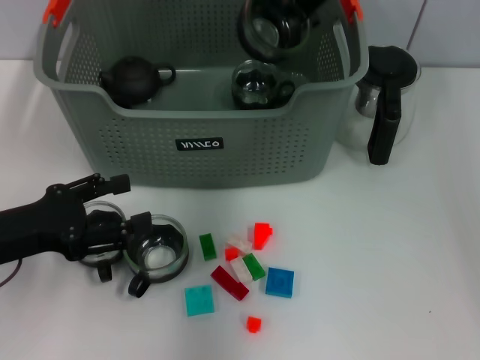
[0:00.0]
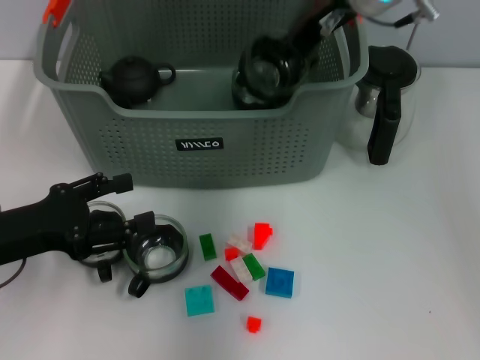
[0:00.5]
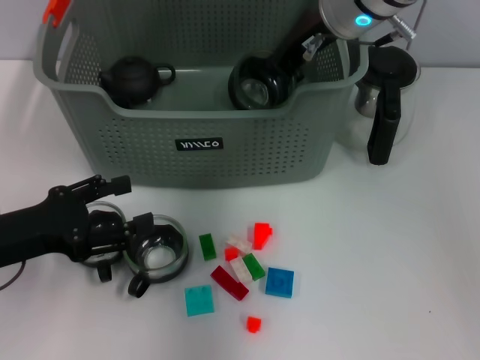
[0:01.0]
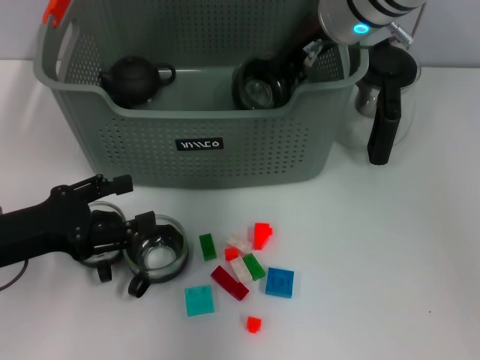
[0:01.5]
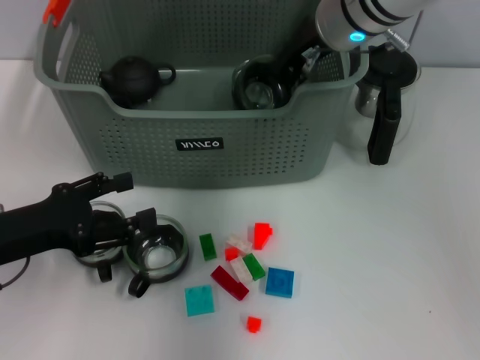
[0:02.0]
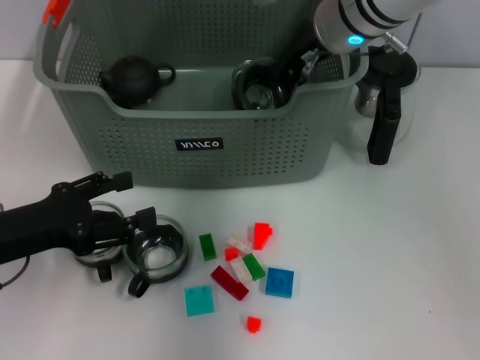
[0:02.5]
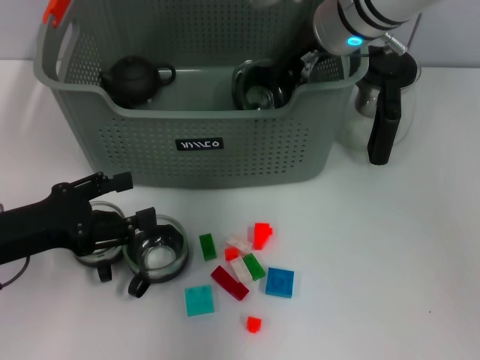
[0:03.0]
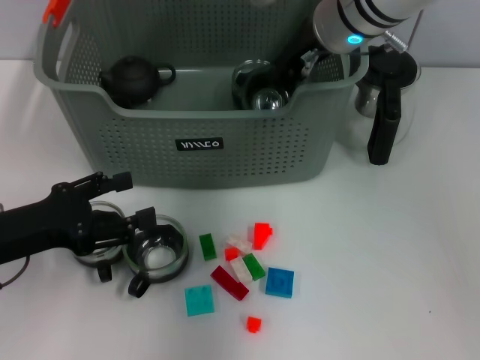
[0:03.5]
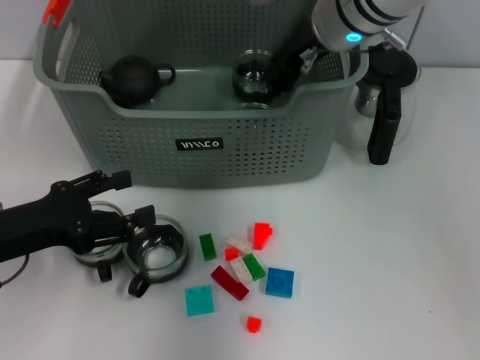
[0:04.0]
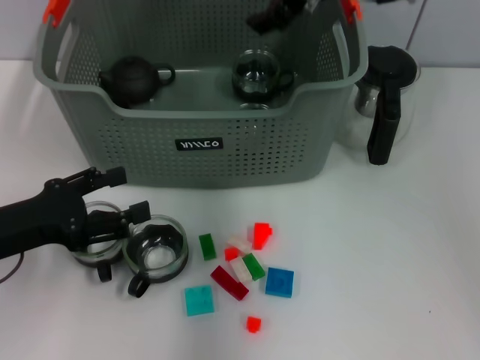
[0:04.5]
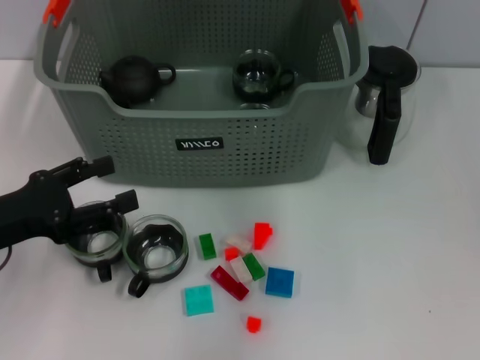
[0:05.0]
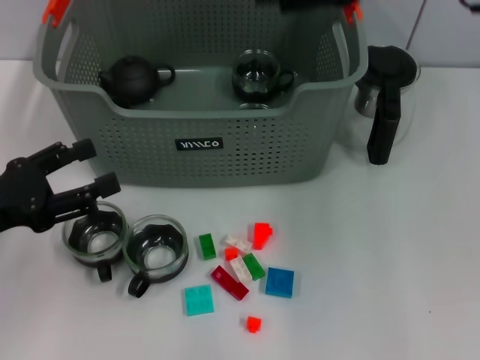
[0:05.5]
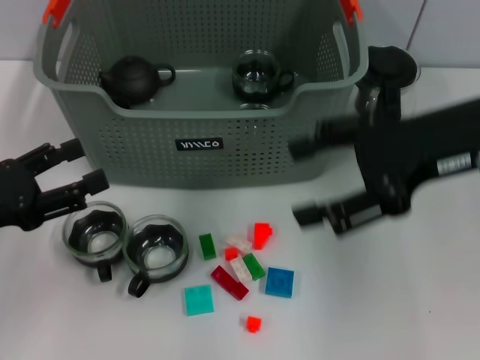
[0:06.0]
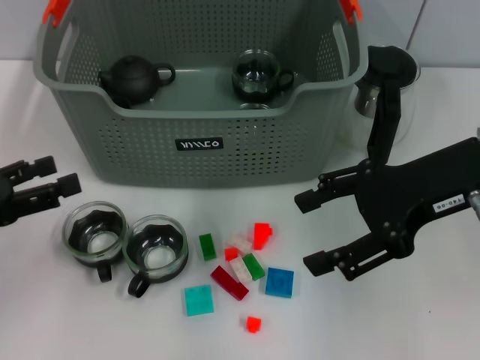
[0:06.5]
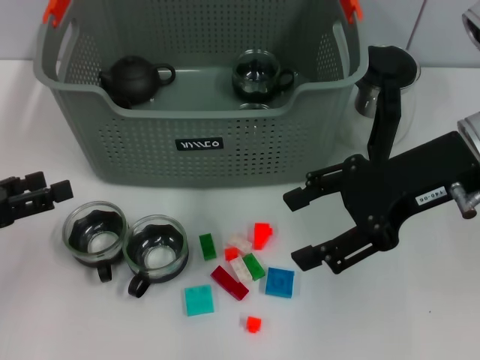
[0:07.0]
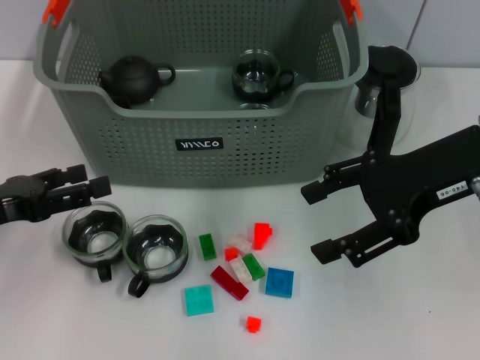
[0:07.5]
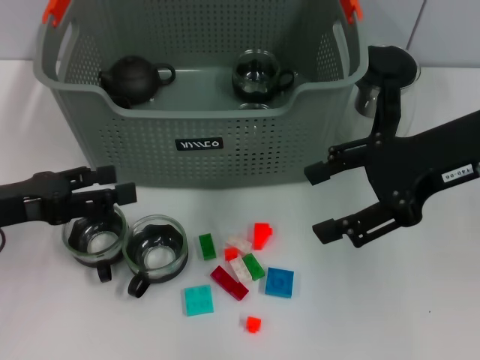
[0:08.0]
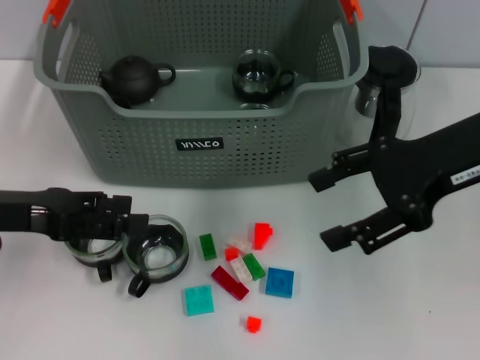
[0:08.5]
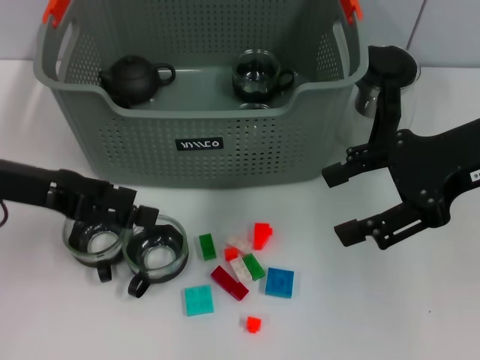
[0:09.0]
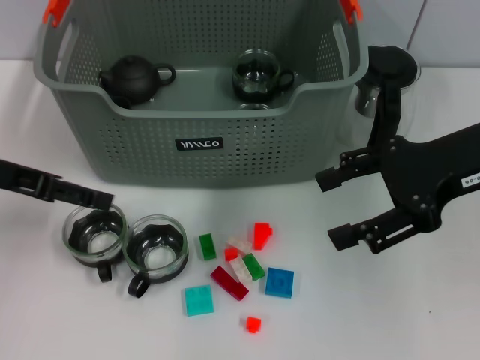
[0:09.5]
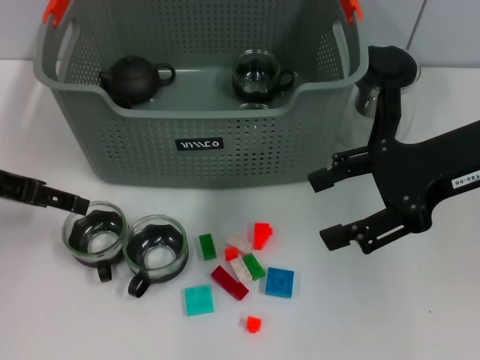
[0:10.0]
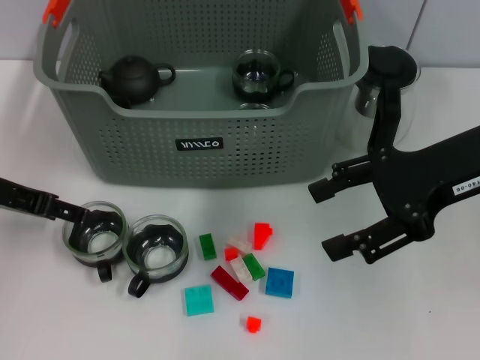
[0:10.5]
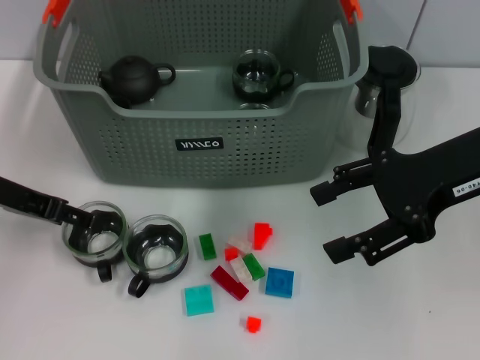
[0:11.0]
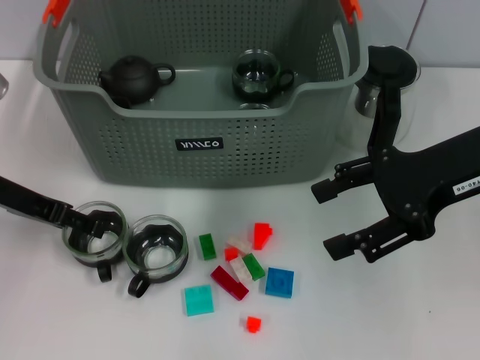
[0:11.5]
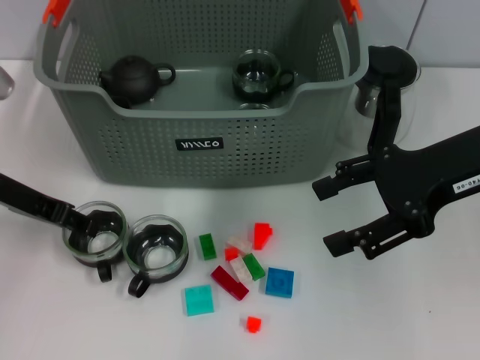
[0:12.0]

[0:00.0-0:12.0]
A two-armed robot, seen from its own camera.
Task of the whole recording: pick up the teacup on the table and place it into the storage bin, pick up the block on the table and place it into the storage bin.
Step, 0:00.0 to 0:04.0: Place the cup in the storage box with right gripper.
0:00.0 to 0:02.0: The right gripper travels downward by some 5 cm.
0:02.0 to 0:04.0: The two grippers keep their place.
0:04.0 to 0:06.0: The right gripper travels backward and to the right by some 20 cm, and opens its fingers.
0:08.0 to 0:10.0: The left gripper moves forward and upward, approximately 10 cm.
0:10.0 to 0:12.0: The left gripper moves about 5 cm.

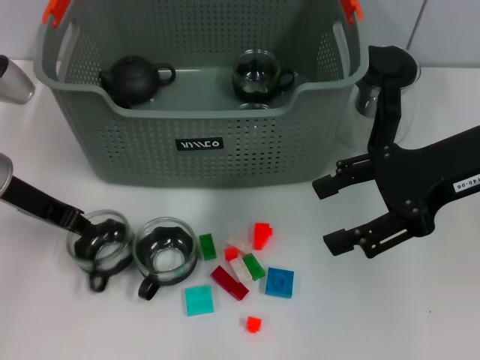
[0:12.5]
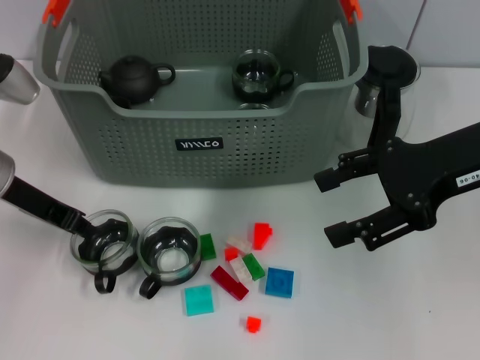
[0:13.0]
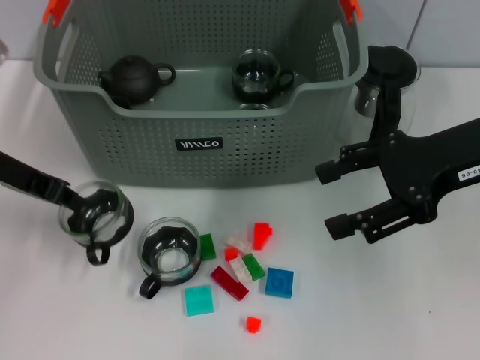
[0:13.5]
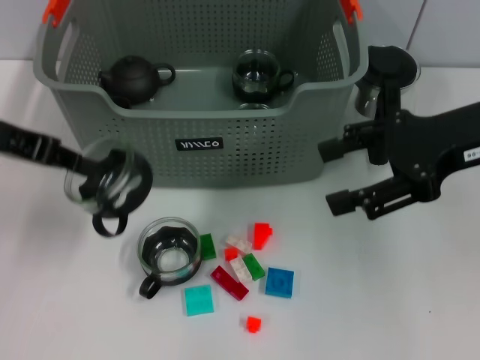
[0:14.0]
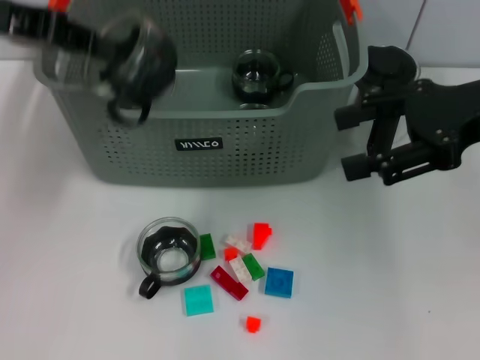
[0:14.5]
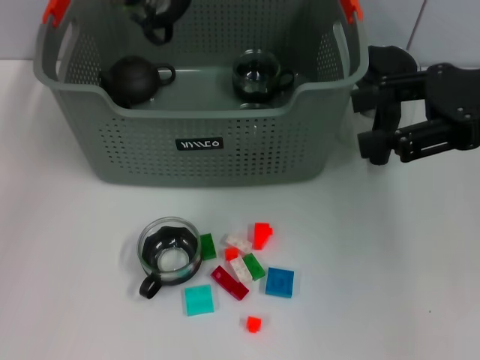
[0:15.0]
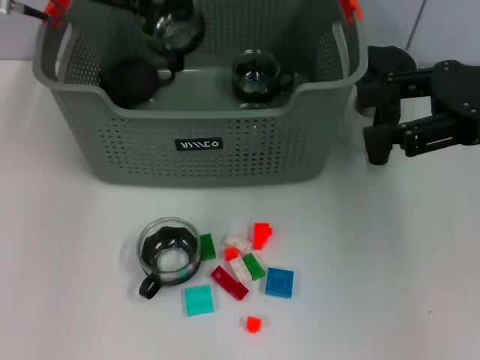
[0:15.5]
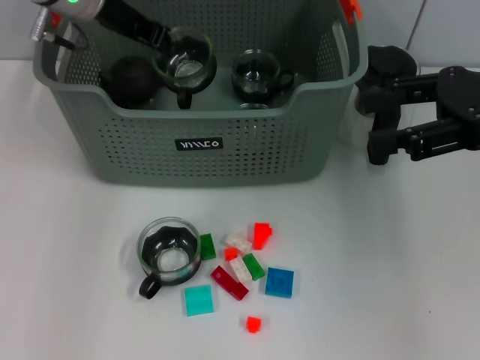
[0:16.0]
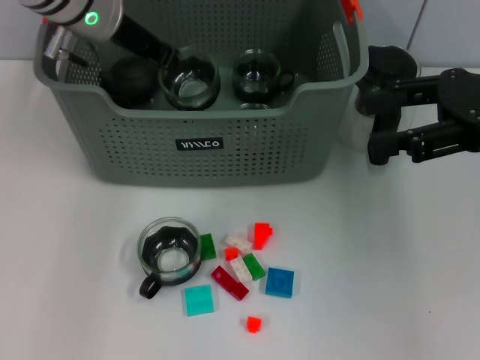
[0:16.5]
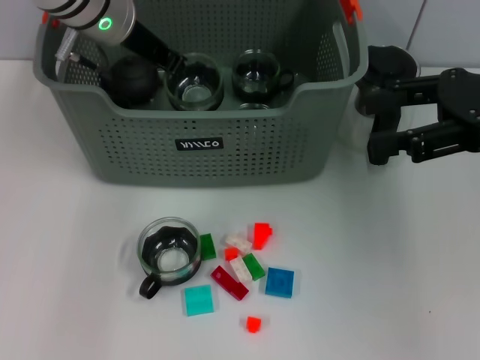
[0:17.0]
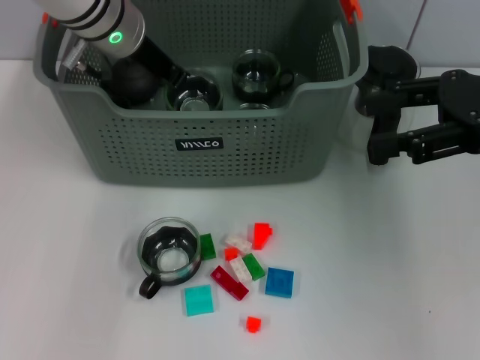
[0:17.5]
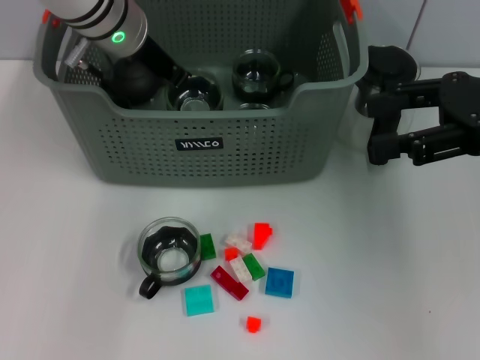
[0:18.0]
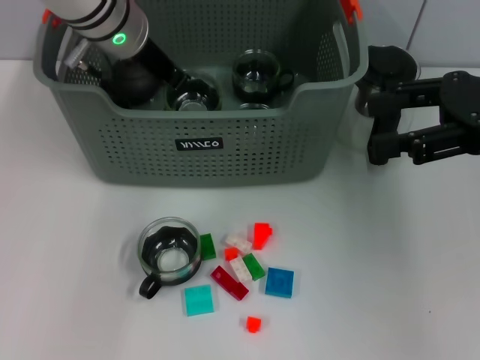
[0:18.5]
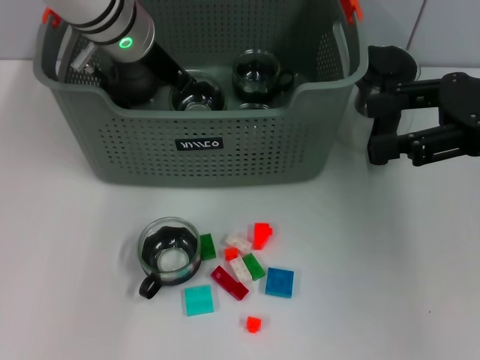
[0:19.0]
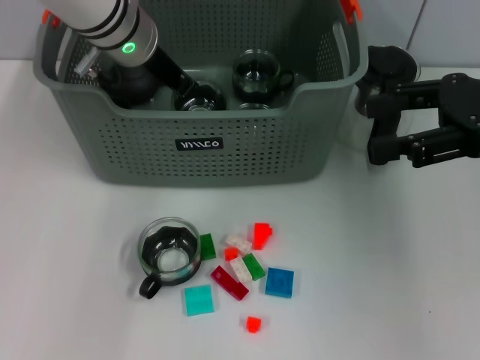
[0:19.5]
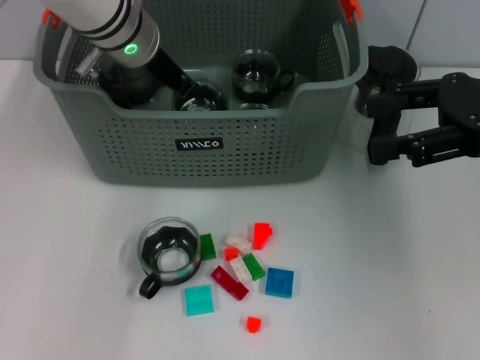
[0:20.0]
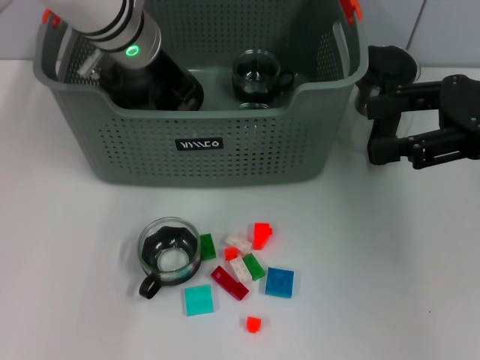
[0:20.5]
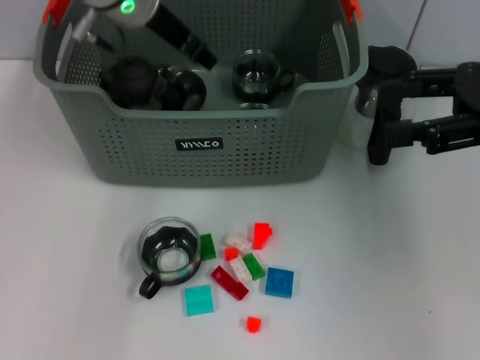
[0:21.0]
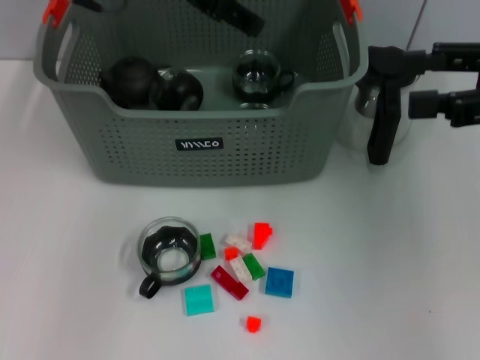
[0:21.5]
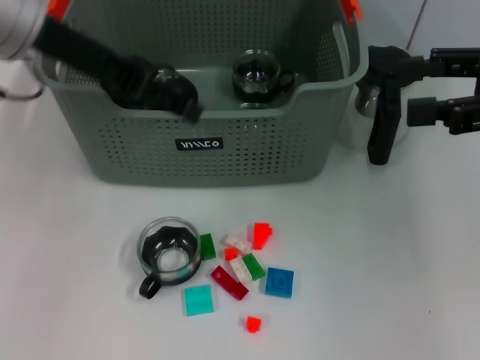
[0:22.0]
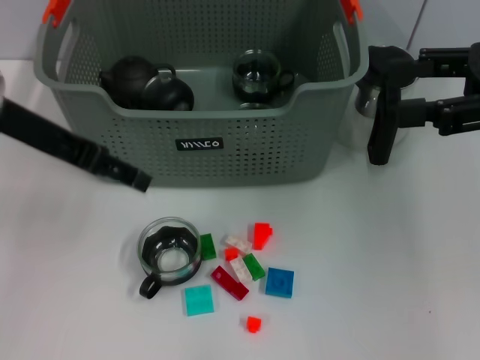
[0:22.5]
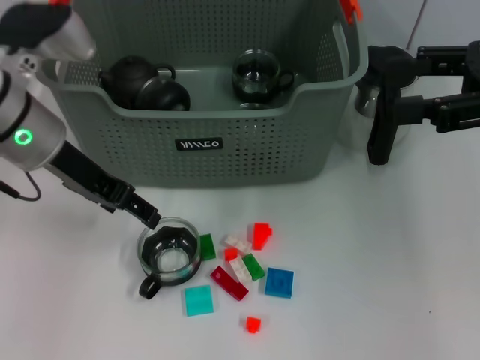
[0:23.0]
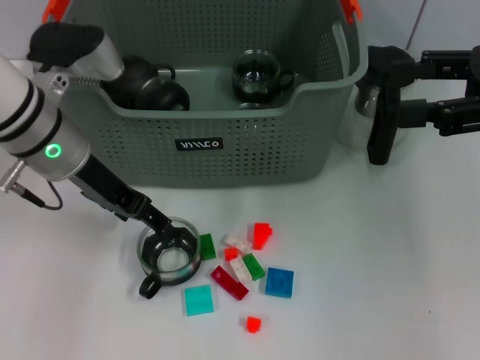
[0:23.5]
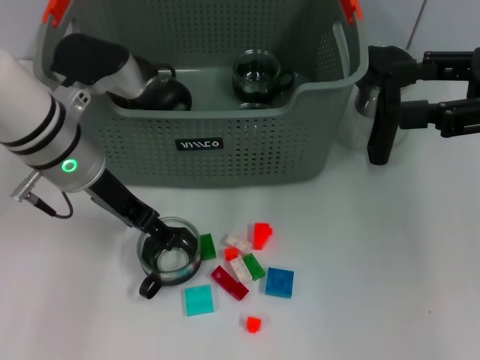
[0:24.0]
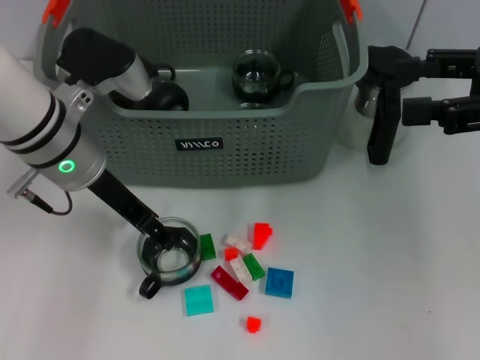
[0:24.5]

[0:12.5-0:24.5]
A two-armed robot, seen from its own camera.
Task of the whole recording: pick up the teacup on the table and place it into the storage bin, pick up the block on the table and place it into the storage bin.
Step, 0:13.0 to 0:21.0: Place the cup in the storage box with left gripper.
0:12.5 to 0:14.5: The left gripper moves upward, approximately 15 cm.
0:14.5 to 0:16.5: The left gripper heads to the right, forward and downward, covering some 15 cm.
0:16.5 to 0:20.5: The grippers make only small movements.
0:20.5 to 0:22.5: The left gripper heads backward and to the left, covering about 15 cm, and opens up.
0:22.5 to 0:24.5: The left gripper is displaced downward and to the right by approximately 10 cm.

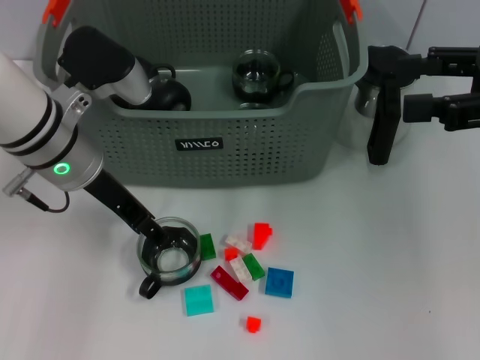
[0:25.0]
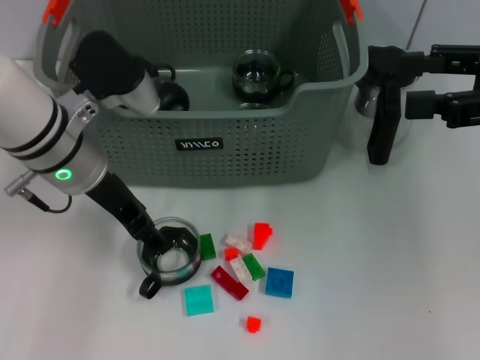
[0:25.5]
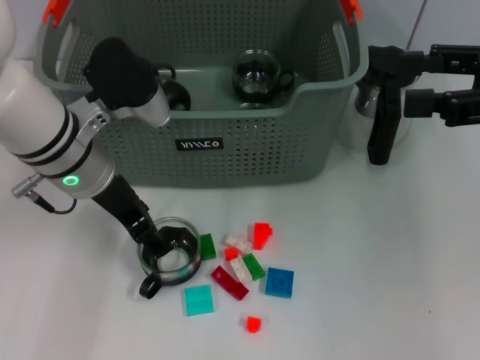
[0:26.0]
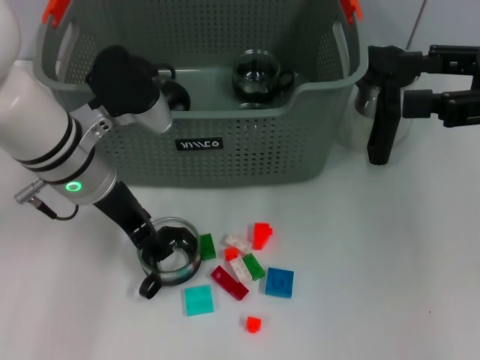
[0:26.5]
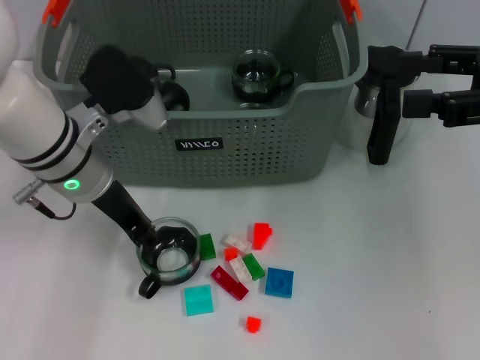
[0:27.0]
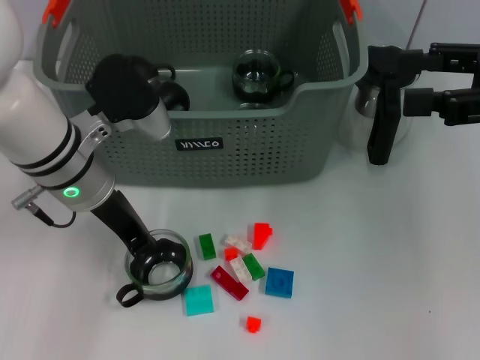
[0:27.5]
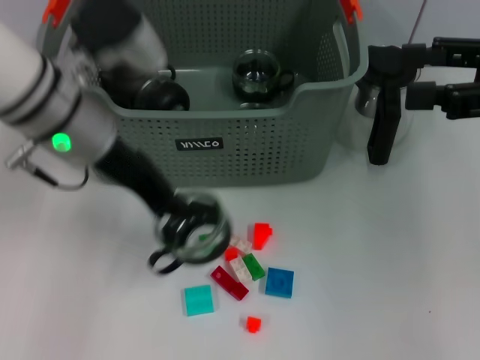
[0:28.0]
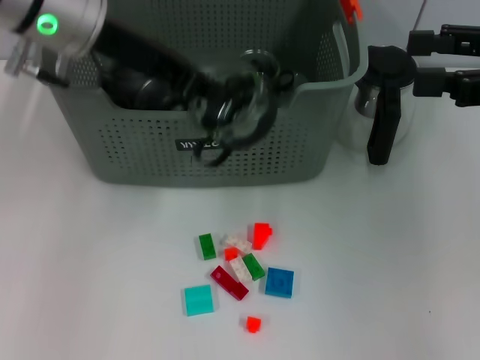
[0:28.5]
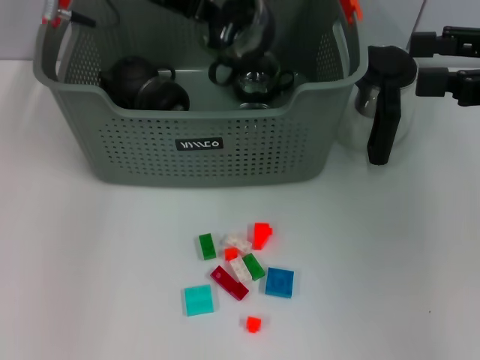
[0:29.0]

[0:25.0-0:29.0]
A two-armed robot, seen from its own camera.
Task of the whole recording: pick up the teacup on the table and place it into the storage bin, pick up the block on the table and place it into the storage bin.
Step, 0:25.0 to 0:27.0: Grasp the cup with left gripper.
0:25.0 to 0:27.0: The left gripper closes its fingers.
0:27.0 to 0:29.0: The left gripper moves upward and forward, about 15 cm, and closes up.
